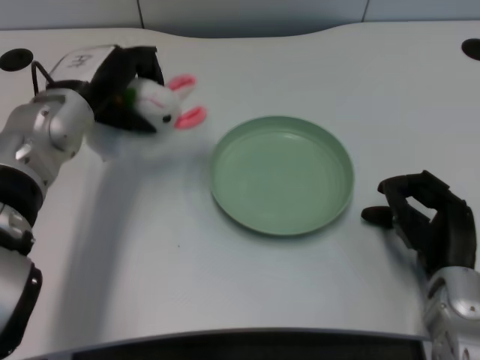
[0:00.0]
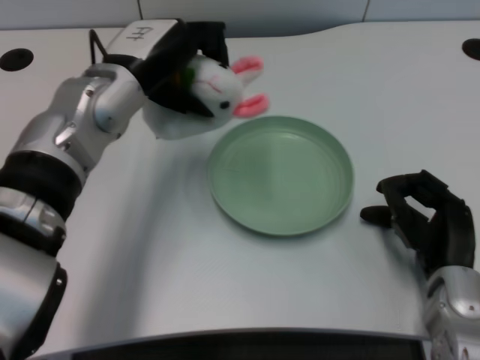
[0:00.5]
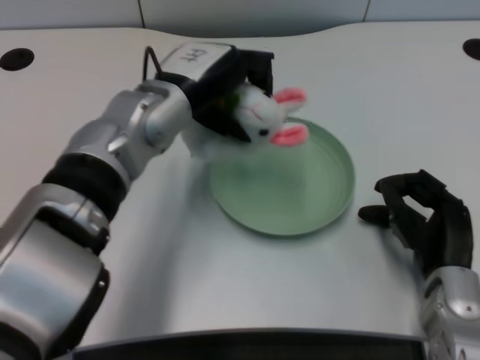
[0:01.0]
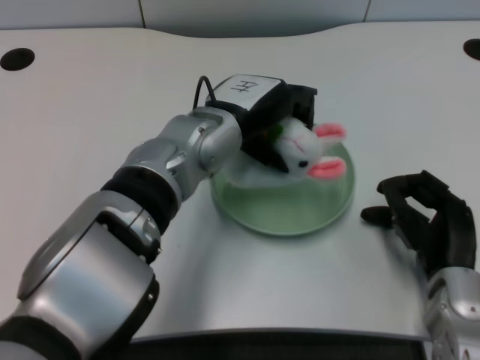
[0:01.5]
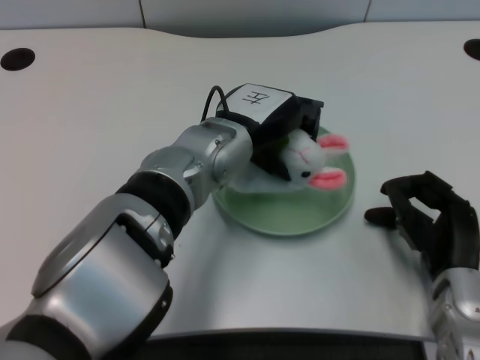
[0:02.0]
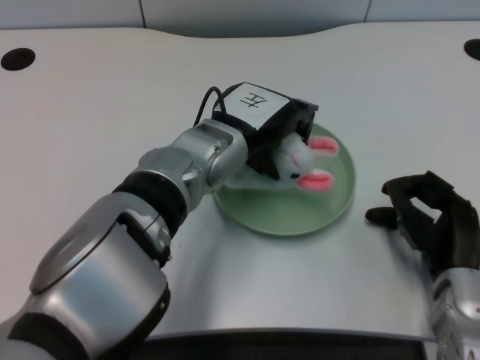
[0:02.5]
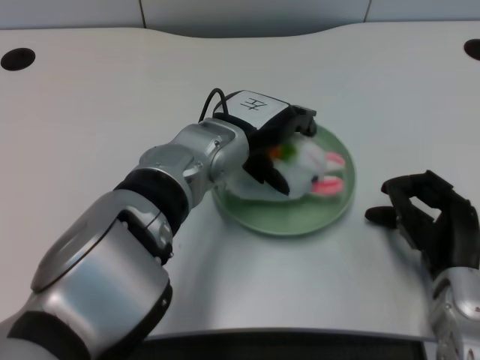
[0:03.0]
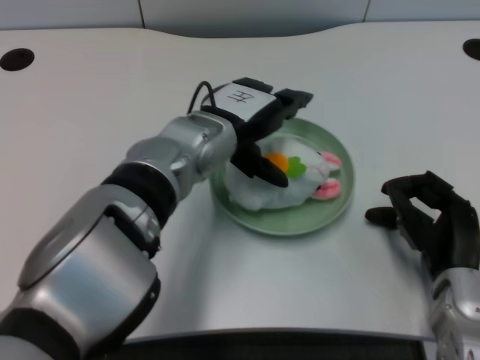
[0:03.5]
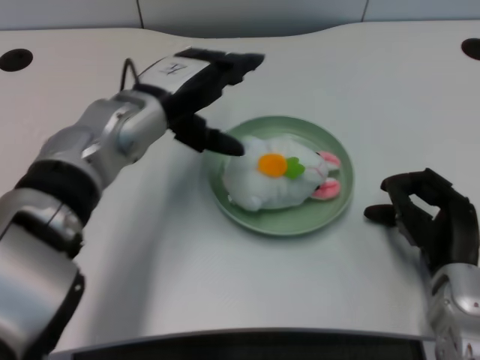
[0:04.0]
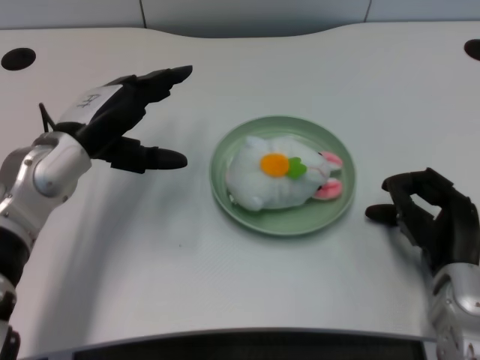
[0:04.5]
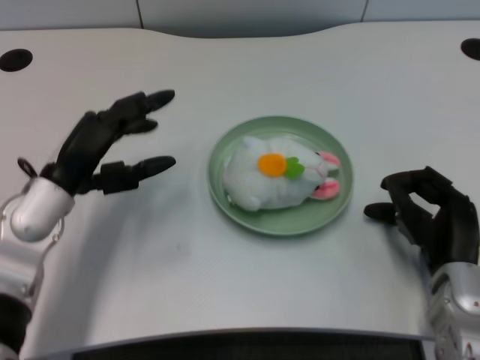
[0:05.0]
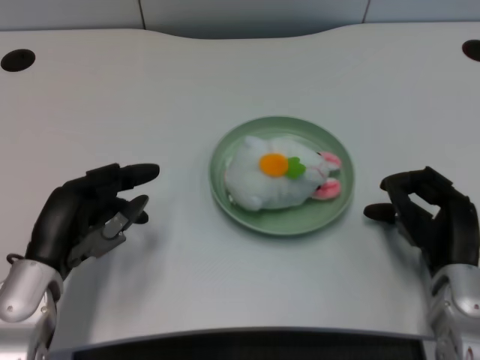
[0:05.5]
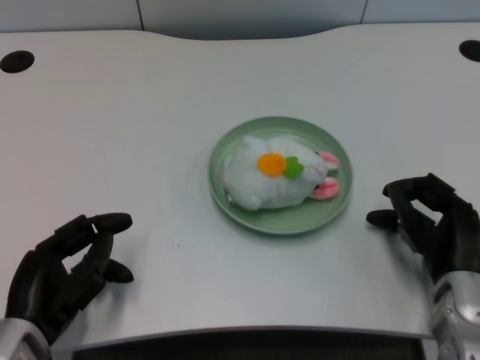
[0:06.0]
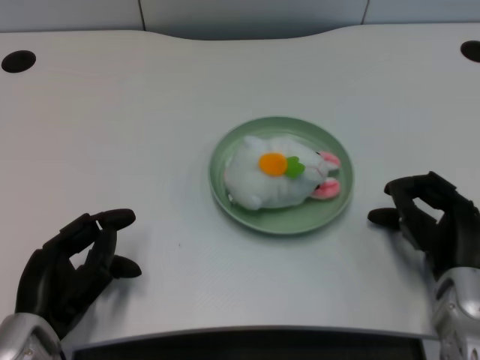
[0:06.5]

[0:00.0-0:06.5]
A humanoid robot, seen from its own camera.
Task of the whole recording: pick up the rabbit doll from the table and place it on the plate.
Step, 0:00.0 to 0:03.0: Place the rabbit doll into the plate with the left gripper.
0:00.0 to 0:02.0: The left hand heads to the right, covering approximately 15 cm.
0:02.0 to 0:04.5: The left hand is displaced to the left by some 15 cm.
0:04.5 to 0:06.5: The left hand moves backward and downward, roughly 15 cm.

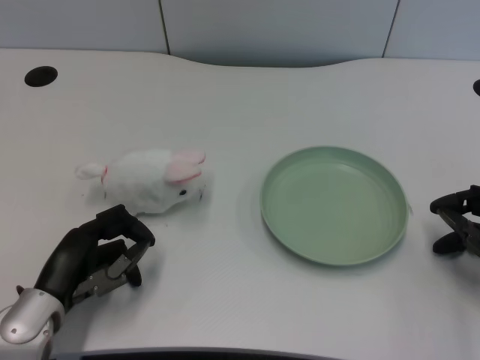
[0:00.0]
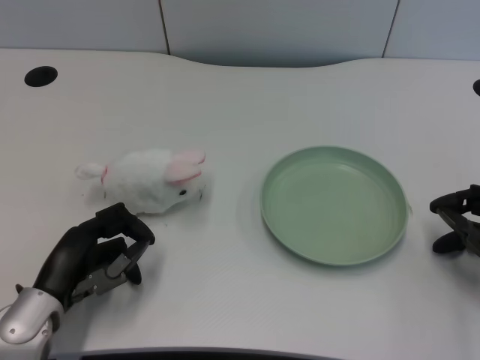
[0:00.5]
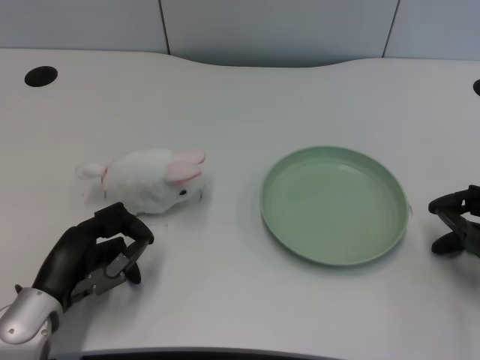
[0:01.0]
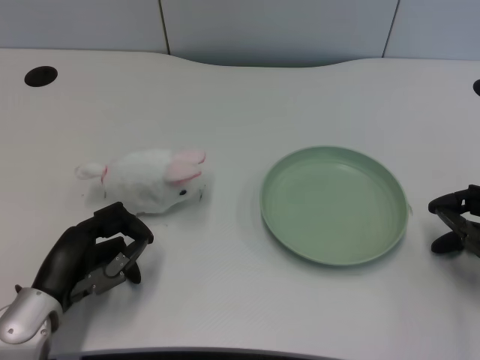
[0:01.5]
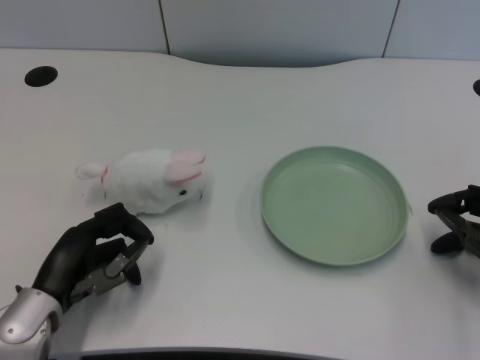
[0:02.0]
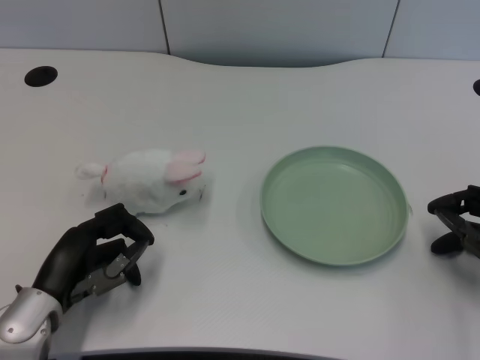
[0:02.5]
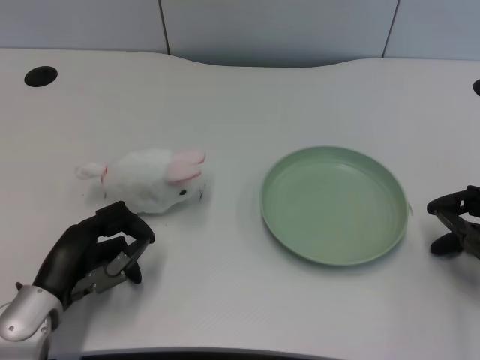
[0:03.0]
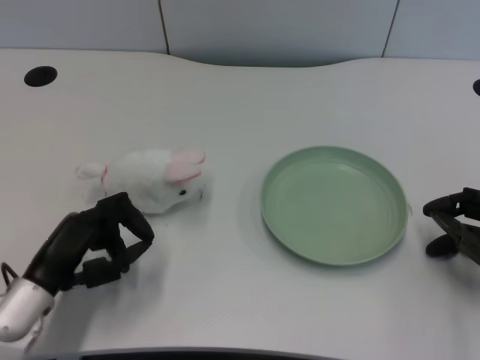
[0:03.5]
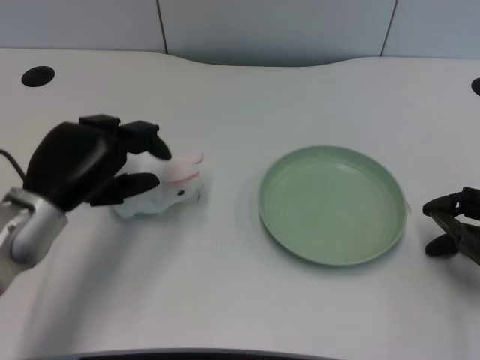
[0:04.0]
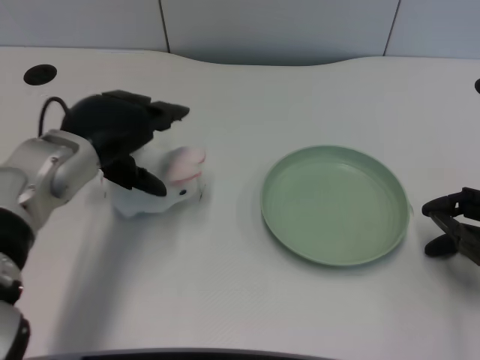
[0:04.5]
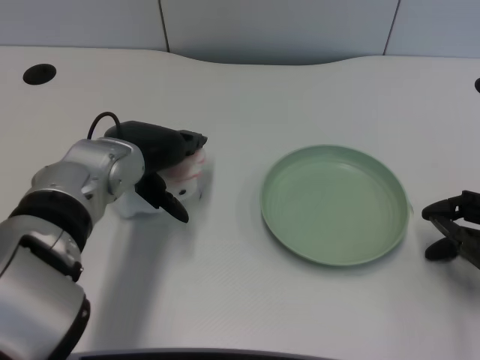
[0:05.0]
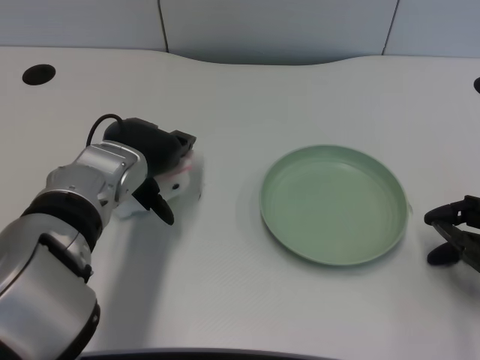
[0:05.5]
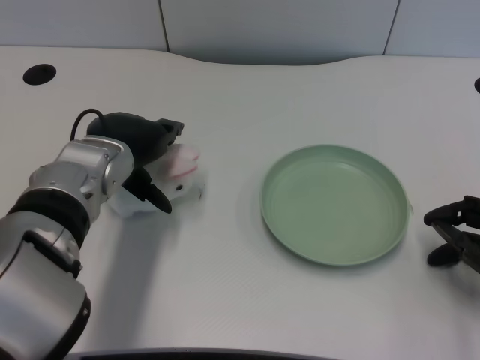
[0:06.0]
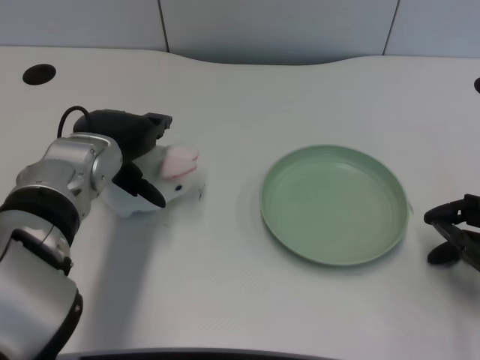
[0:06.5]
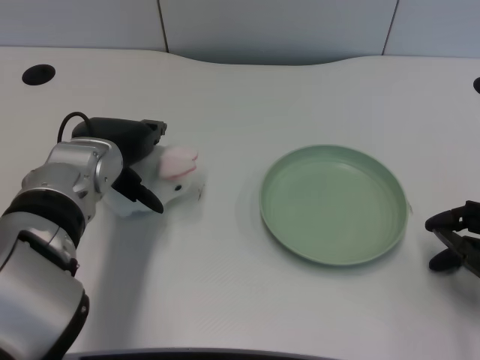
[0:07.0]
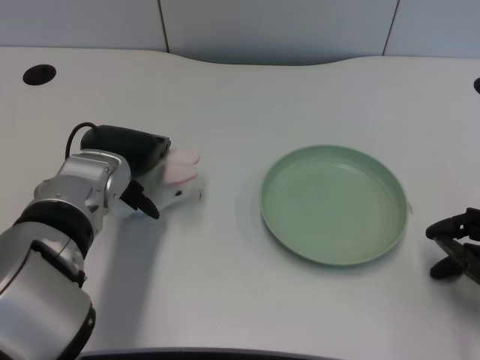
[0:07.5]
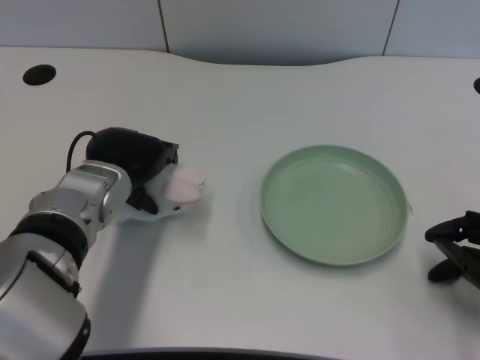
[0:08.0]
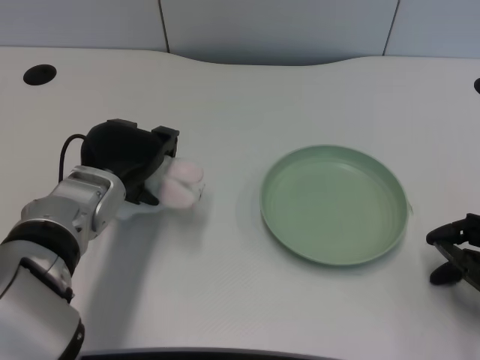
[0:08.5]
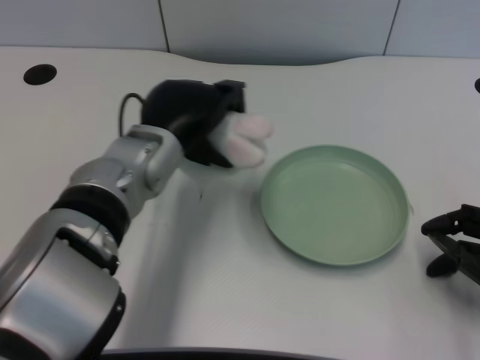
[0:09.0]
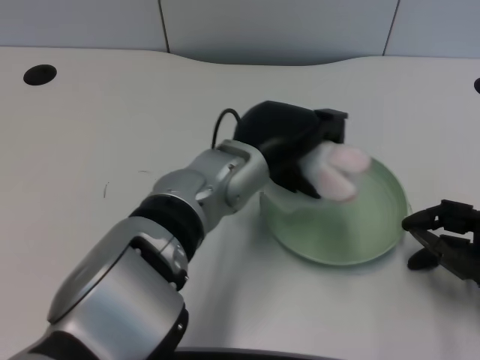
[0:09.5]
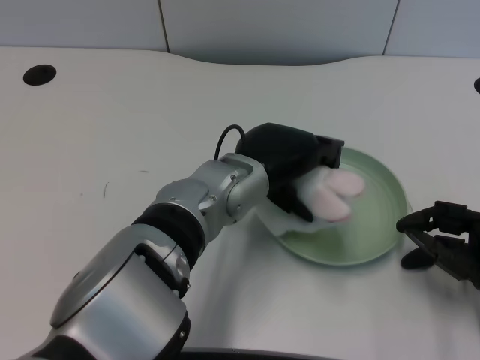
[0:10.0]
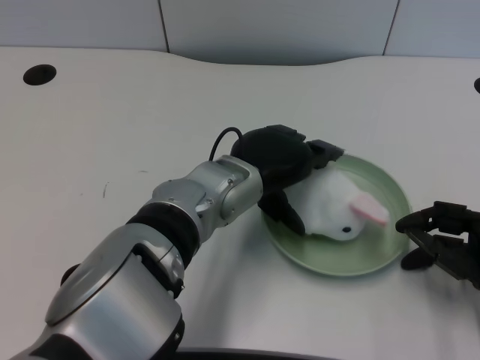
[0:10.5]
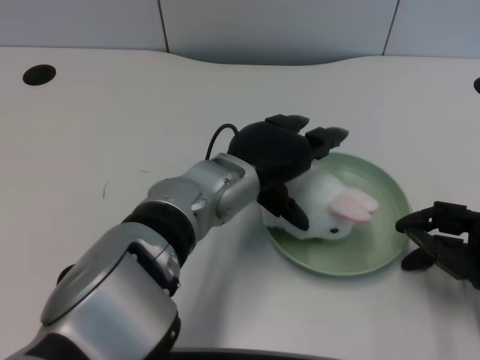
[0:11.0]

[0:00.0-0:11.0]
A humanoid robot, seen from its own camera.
Task of the whole recording: pick up the rabbit doll from the table and place it on the plate.
Step, 0:03.5 to 0:08.5: Grasp the rabbit doll with the left gripper.
Step, 0:09.0 to 0:10.5: Place the rabbit doll into the plate with the left gripper.
0:02.0 to 0:03.5: The hands make only small movements.
0:03.5 to 0:05.5: The left hand heads forward, to the right and upward, covering roughly 15 cm.
0:05.5 to 0:07.5: The hands stay close to where they were, moving slightly.
0:07.5 to 0:09.0: The left hand moves to the right, some 5 cm.
0:09.0 to 0:11.0: The left hand goes some 5 cm to the right.

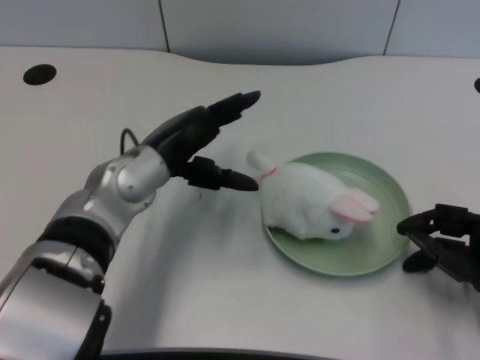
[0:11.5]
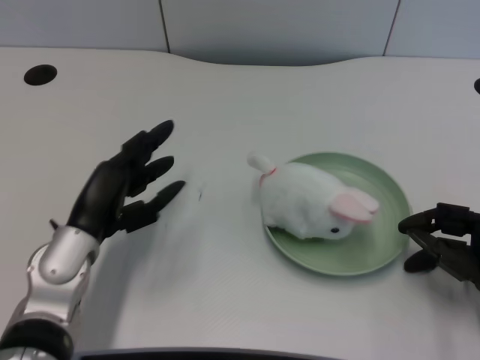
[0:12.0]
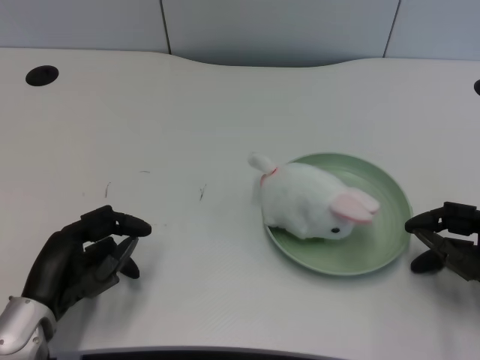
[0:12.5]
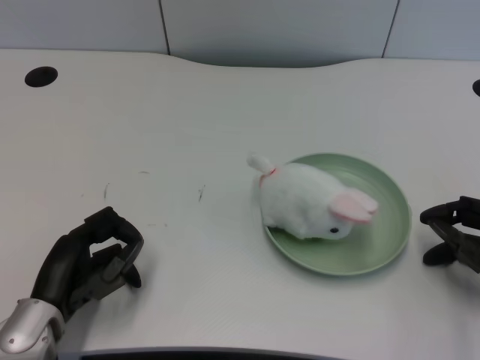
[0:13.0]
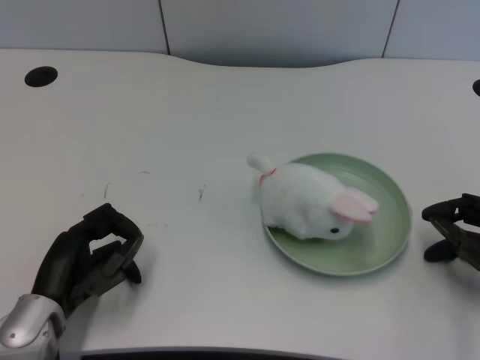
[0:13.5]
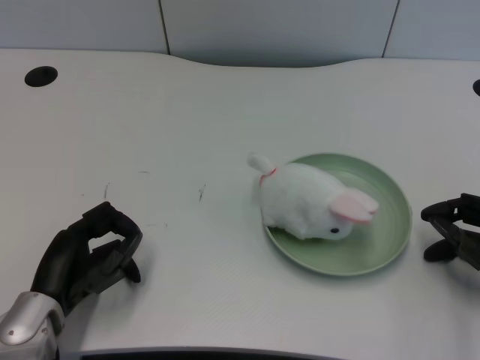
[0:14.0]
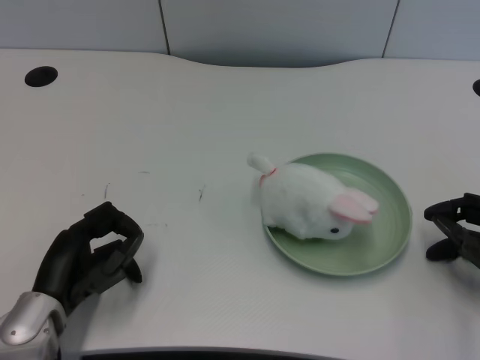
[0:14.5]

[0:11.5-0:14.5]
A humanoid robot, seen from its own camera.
Task of the whole recording: pick up the rabbit doll from the table and place it on the plate.
0:11.5 to 0:13.0: The left hand moves downward, backward and to the left, approximately 20 cm.
0:13.0 to 0:14.5: Both hands stay put.

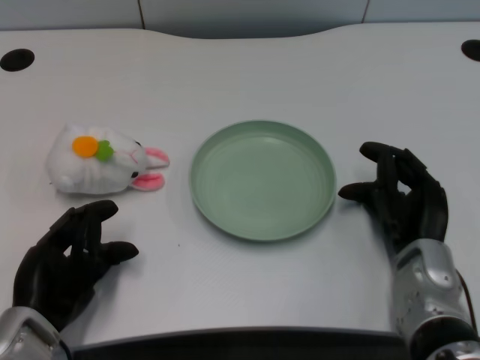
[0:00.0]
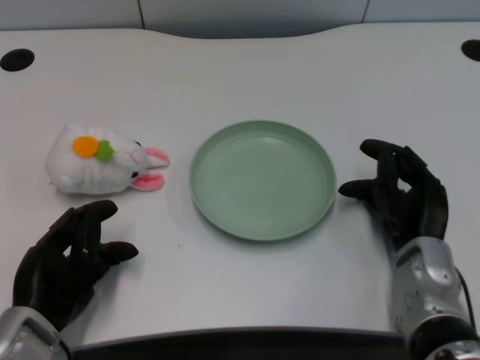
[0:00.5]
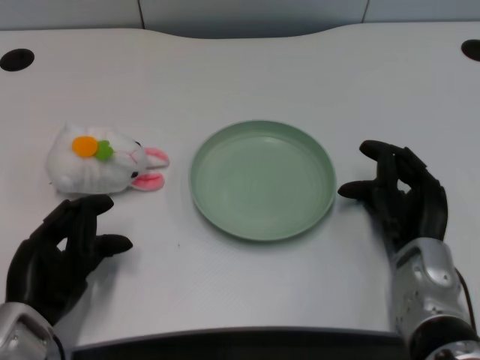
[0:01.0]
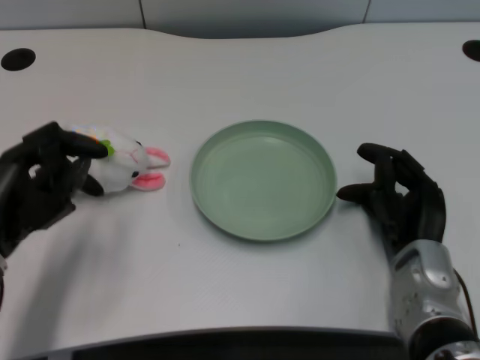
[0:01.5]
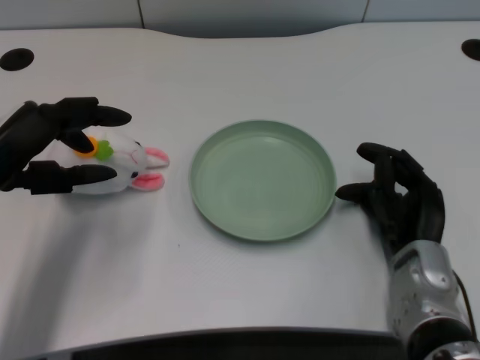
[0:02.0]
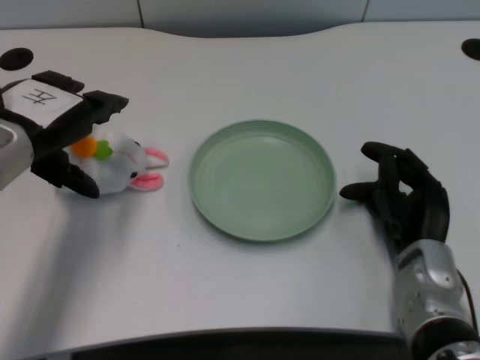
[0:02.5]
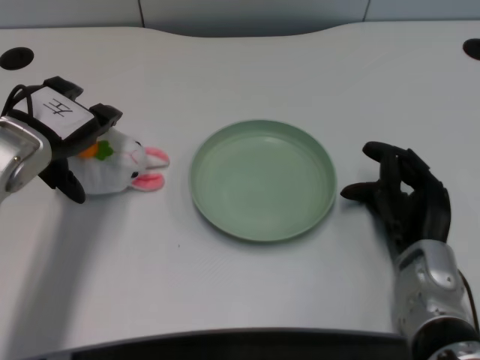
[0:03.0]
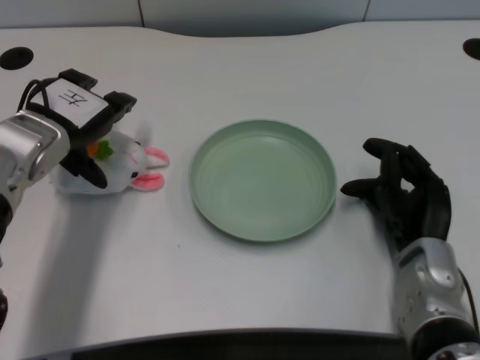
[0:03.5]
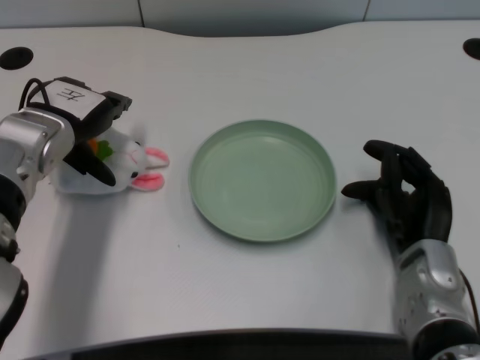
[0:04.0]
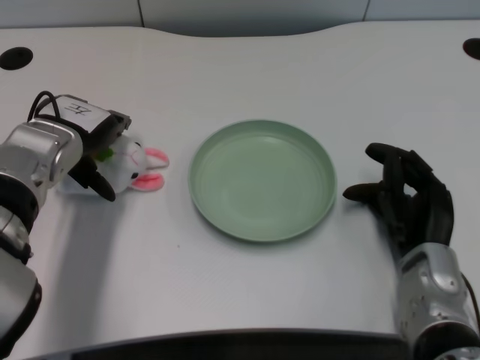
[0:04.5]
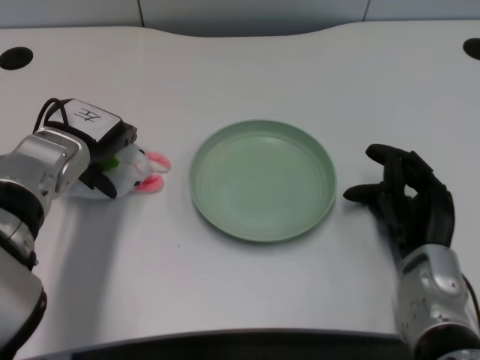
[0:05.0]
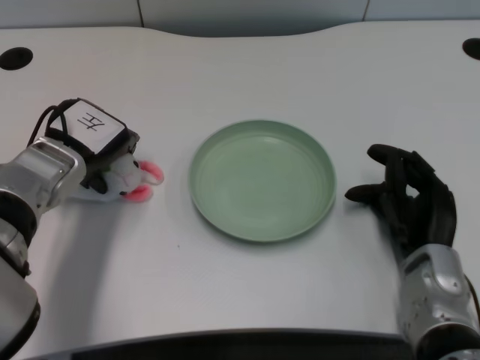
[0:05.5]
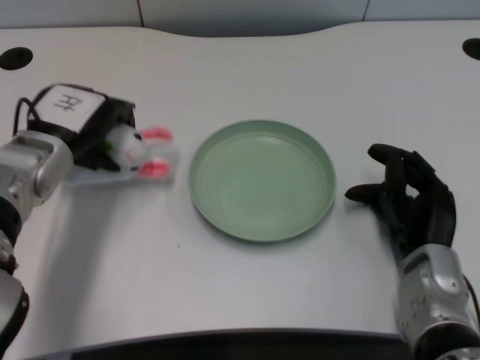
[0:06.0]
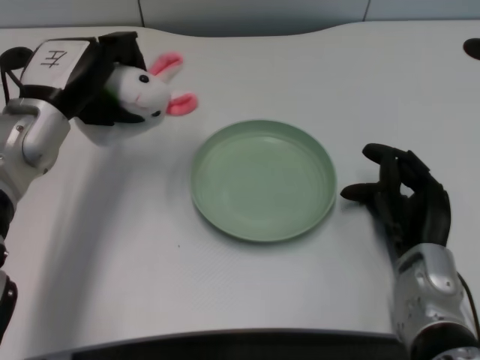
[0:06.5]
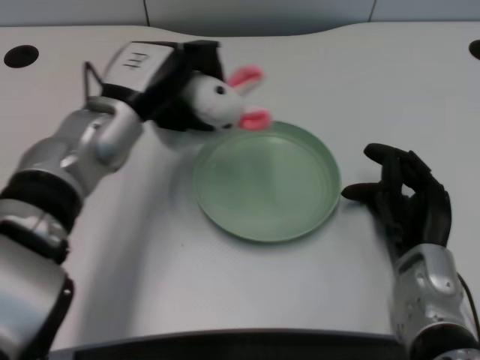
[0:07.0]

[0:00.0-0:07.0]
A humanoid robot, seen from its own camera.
Task of the whole recording: pick up the rabbit doll from the table and place it on the plate.
Step, 0:01.5 to 0:05.5: Grasp the rabbit doll with the left gripper.
0:02.0 to 0:03.5: The left hand heads forward, covering about 10 cm.
0:03.5 to 0:05.0: The hands move only a little.
0:05.0 to 0:07.0: The left hand heads to the right, covering some 5 cm.
